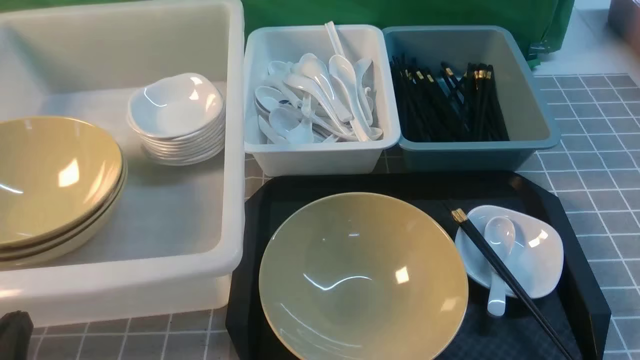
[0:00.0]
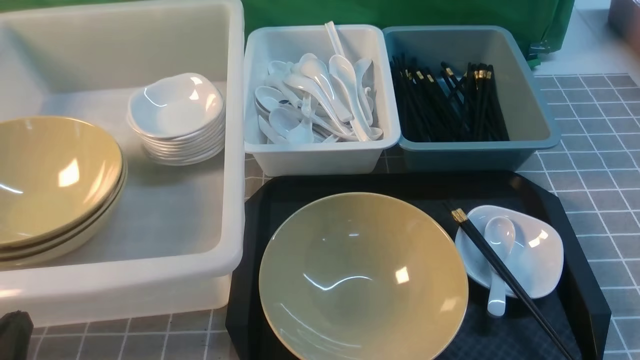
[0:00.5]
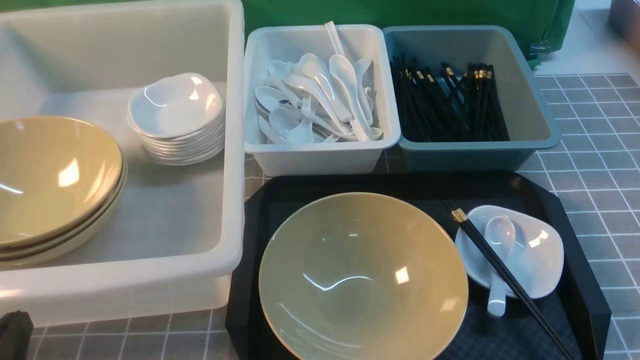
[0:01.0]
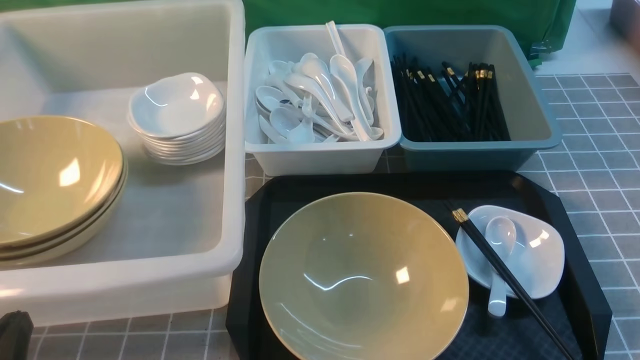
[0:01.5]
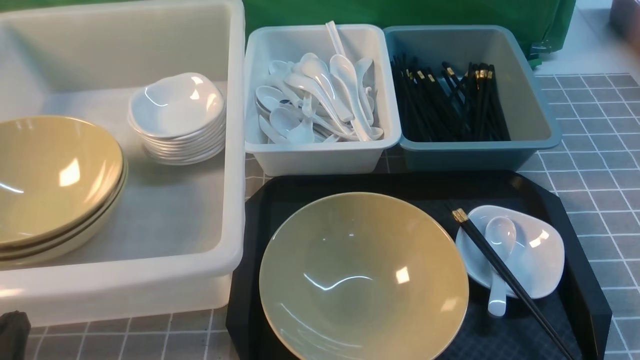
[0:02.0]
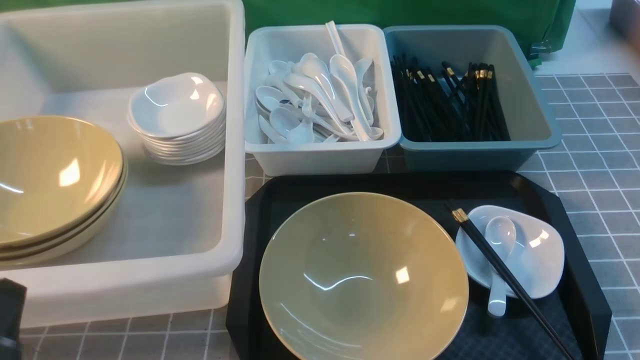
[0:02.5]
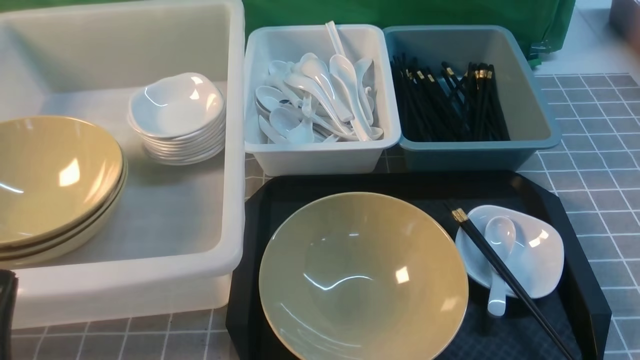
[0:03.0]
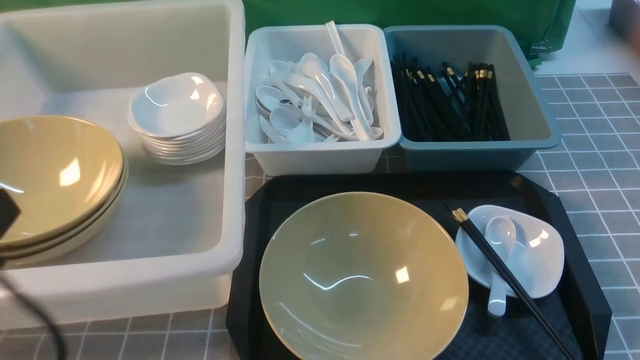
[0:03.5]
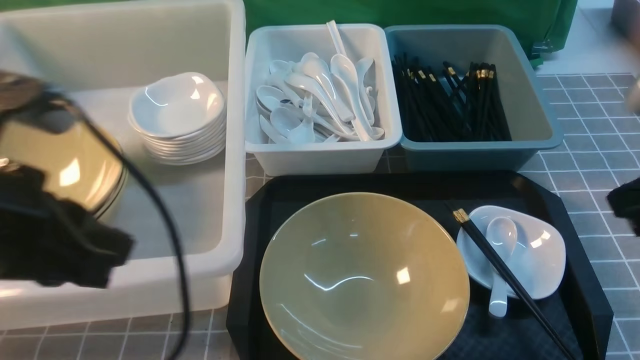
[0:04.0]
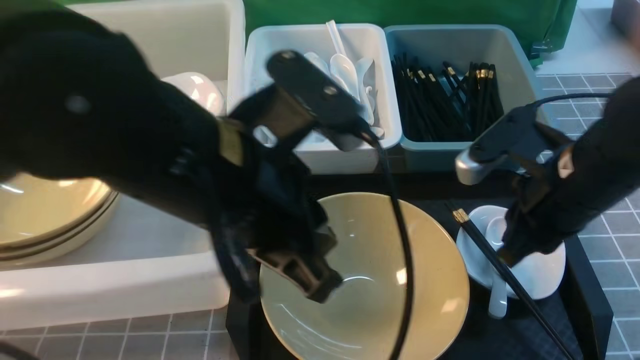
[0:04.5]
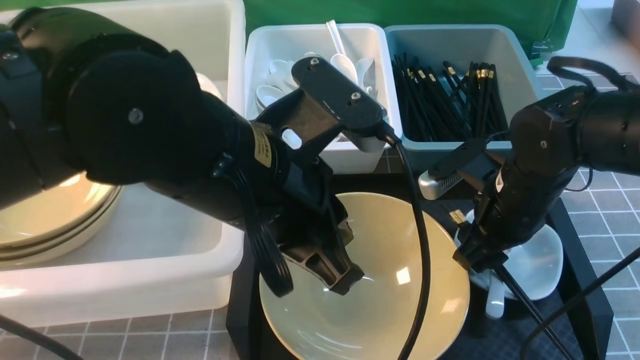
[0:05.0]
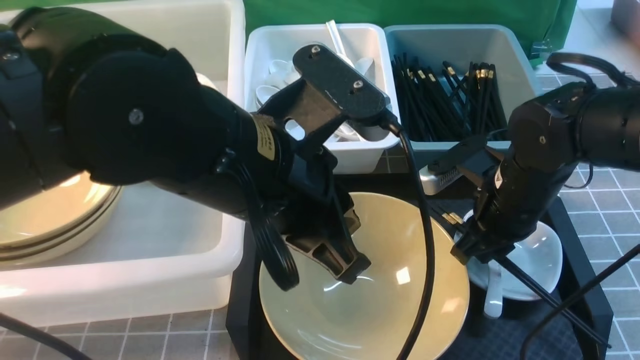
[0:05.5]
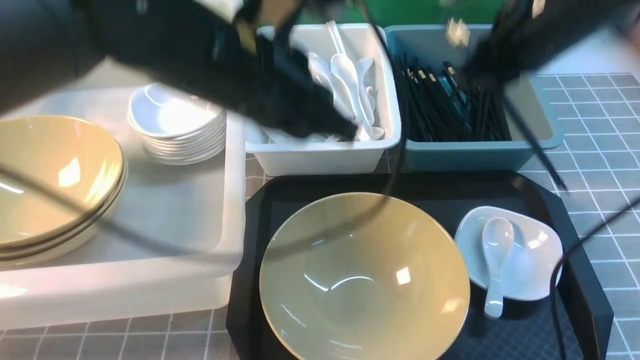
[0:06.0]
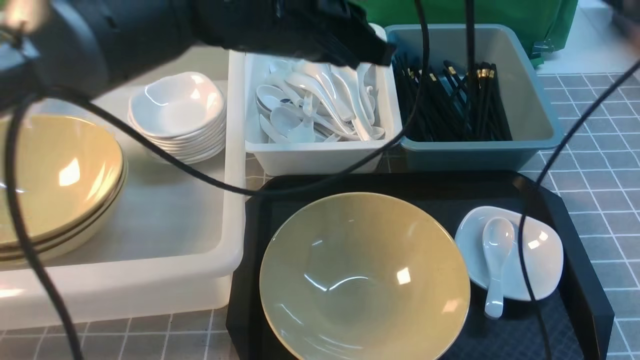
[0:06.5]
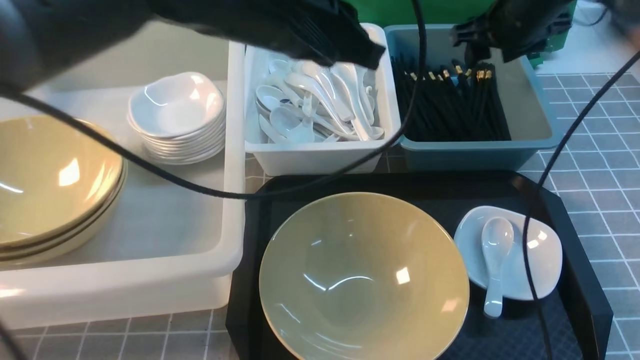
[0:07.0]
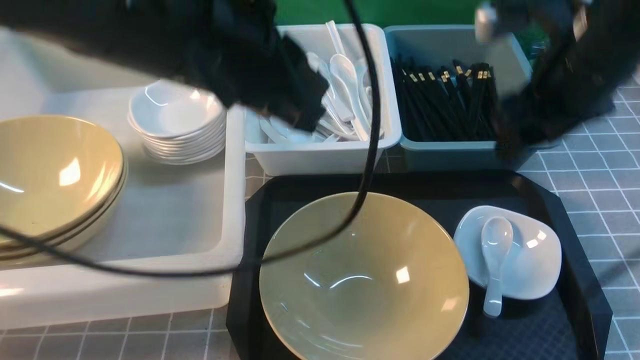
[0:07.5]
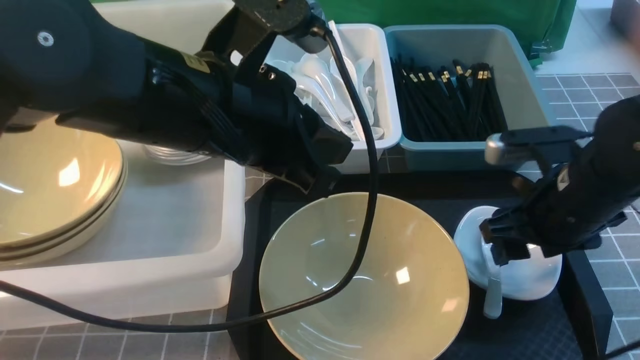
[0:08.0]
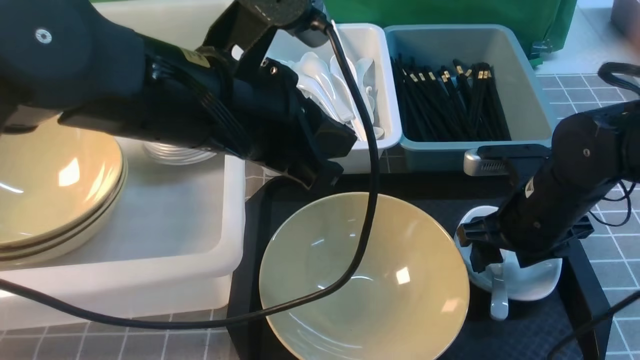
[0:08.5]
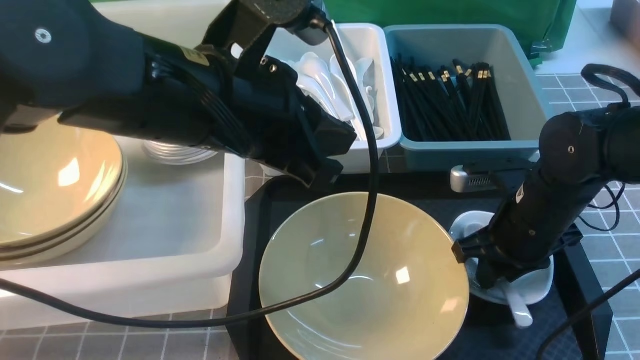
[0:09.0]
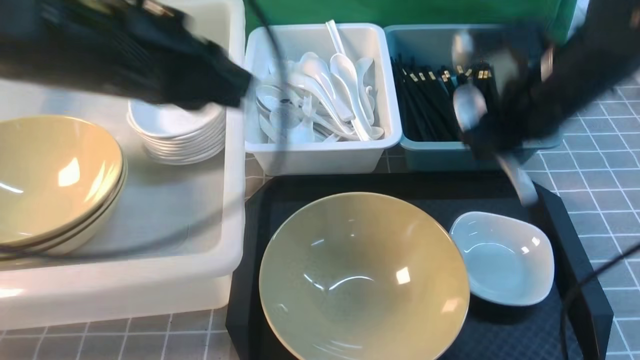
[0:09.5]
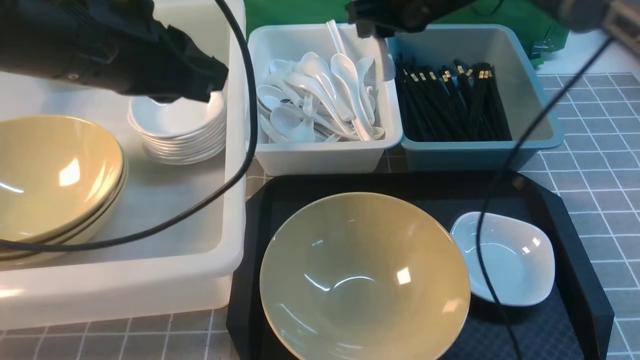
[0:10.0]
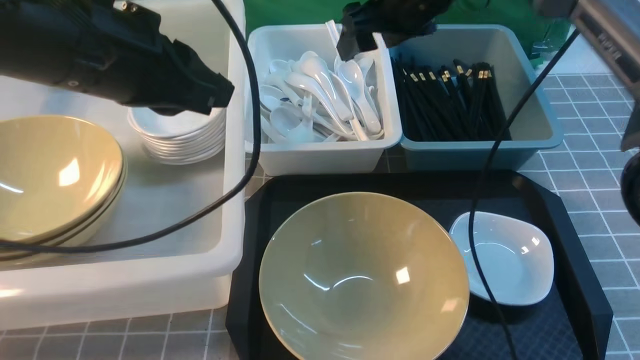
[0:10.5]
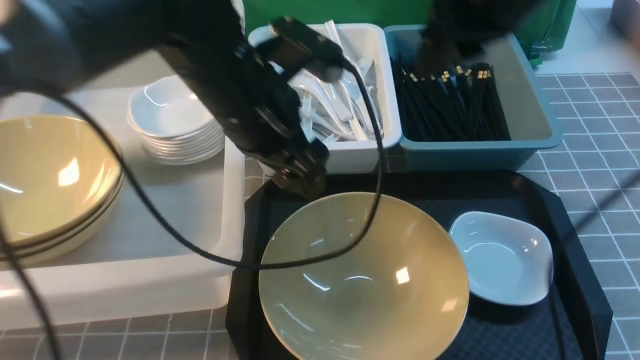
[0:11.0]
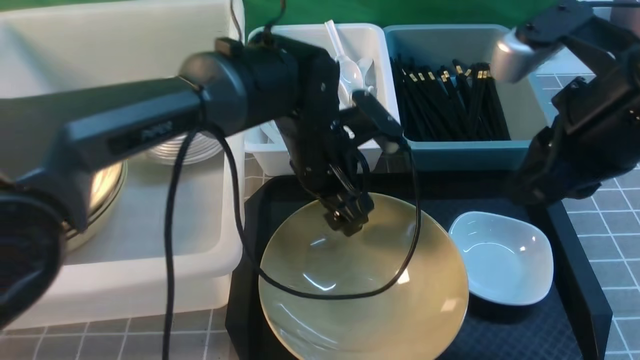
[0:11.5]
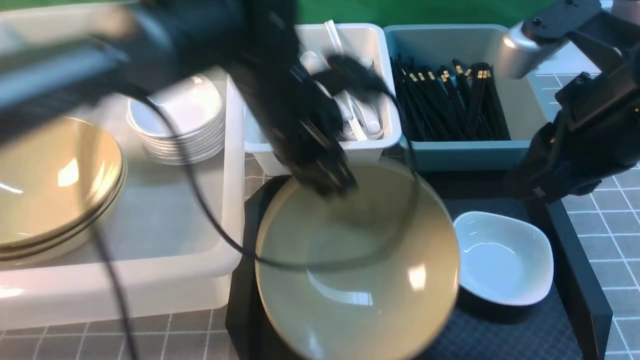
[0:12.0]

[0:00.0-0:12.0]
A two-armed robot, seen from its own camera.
Task of the whole recording: on grey table put chopsticks spoon bowls plates into blue grey white boxes.
Step, 0:00.0 to 0:05.5: use the right arm to grab the chopsticks.
Step, 0:06.0 to 0:07.0: use the right arm to put the chopsticks into the small storage box on the right.
Step, 0:07.5 to 0:09.0: use the right arm to grab the soup spoon in the middle.
Step, 0:09.5 to 0:10.0: use the right arm to put the soup spoon into the small storage box in the middle.
Step, 0:10.5 to 0:12.0: use the left arm to grab the yellow noodle bowl on the left.
0:00.0 to 0:02.0: Neither gripper changes place.
0:02.0 to 0:04.0: The grippers both shift upward and forward by roughly 20 cm. The right gripper closes its fingers.
0:04.0 to 0:06.0: The left gripper moves to the right and forward, about 20 cm, while the right gripper shifts some 20 cm forward and to the left, and opens, then closes once more.
0:06.0 to 0:08.0: The right gripper heads downward and backward, covering some 15 cm, and opens up. Meanwhile the left gripper changes place by roughly 5 cm.
0:08.0 to 0:10.0: The left gripper goes roughly 10 cm to the left. Meanwhile the right gripper goes about 25 cm forward, upward and to the left, and closes its fingers.
0:10.0 to 0:12.0: The left gripper goes some 15 cm to the right, downward and forward, and opens and closes again. The right gripper is displaced backward by approximately 25 cm, and opens and closes again.

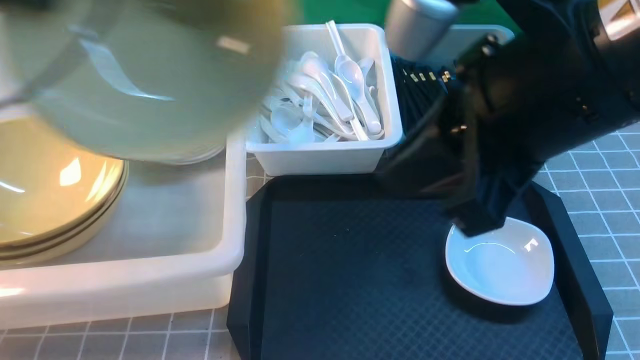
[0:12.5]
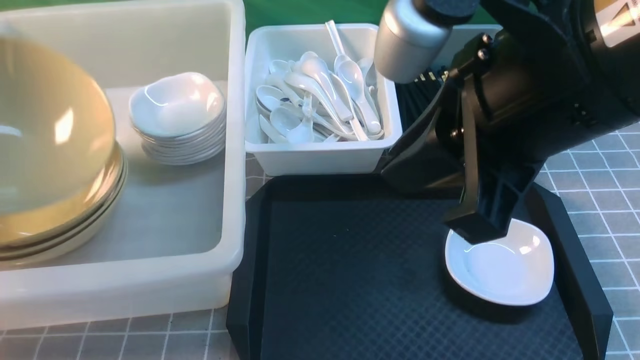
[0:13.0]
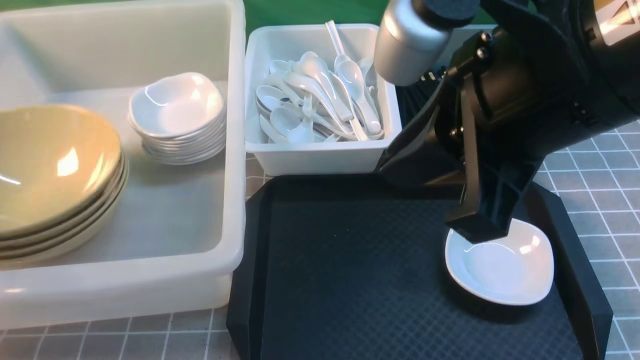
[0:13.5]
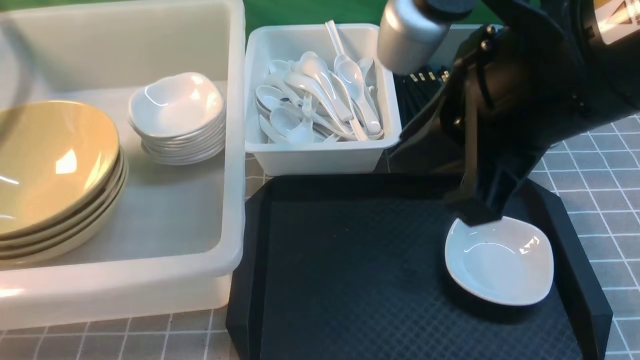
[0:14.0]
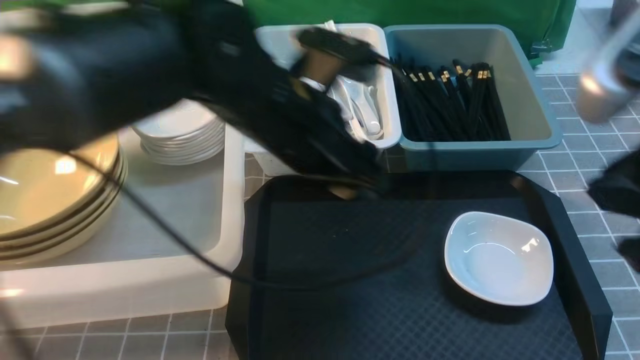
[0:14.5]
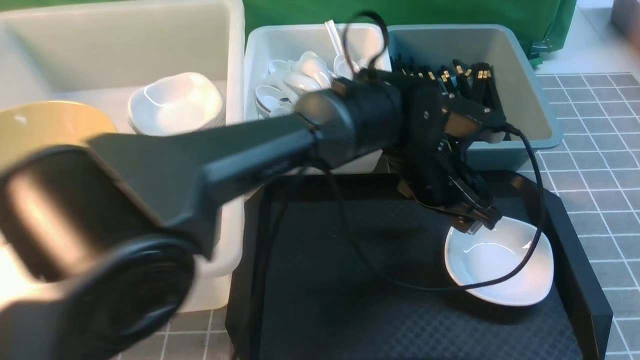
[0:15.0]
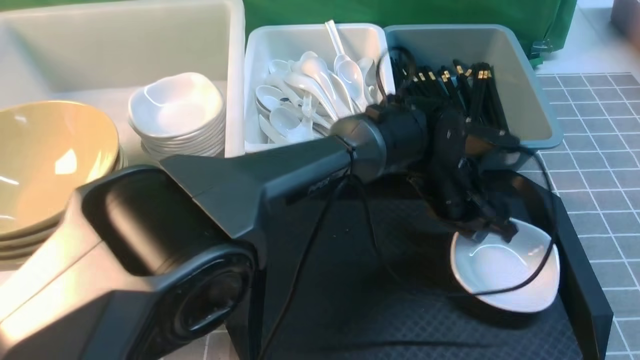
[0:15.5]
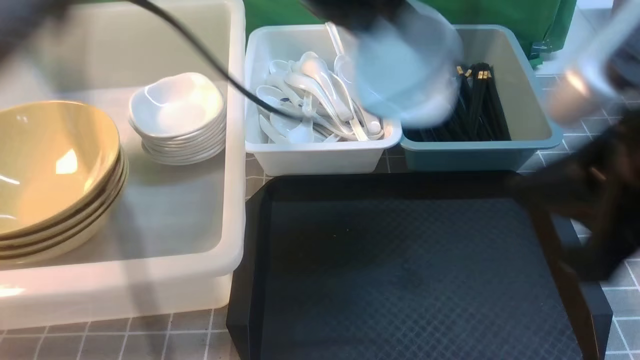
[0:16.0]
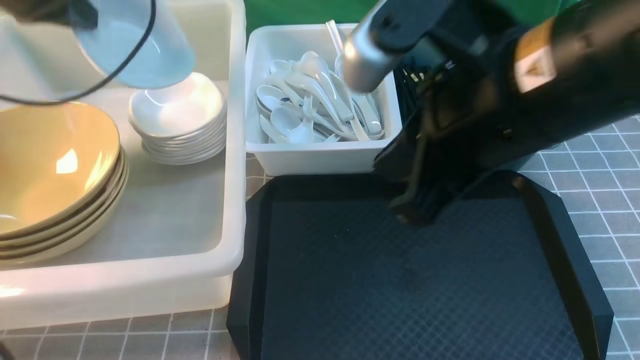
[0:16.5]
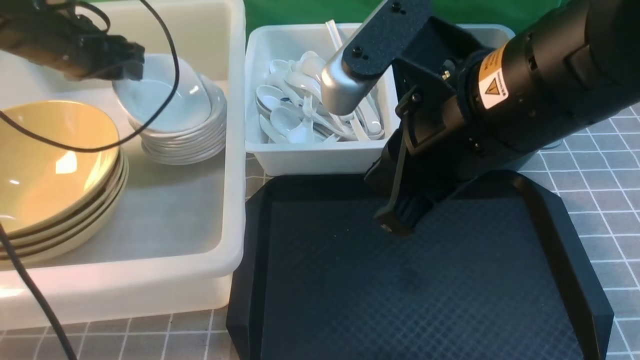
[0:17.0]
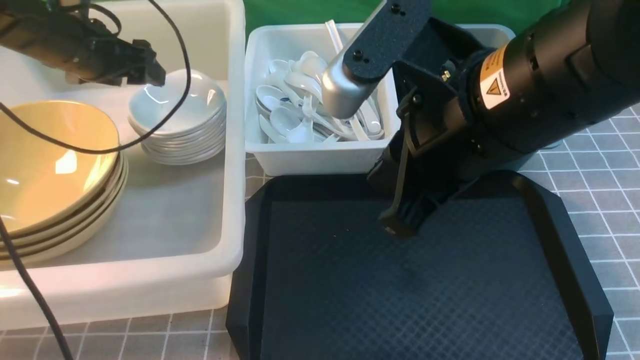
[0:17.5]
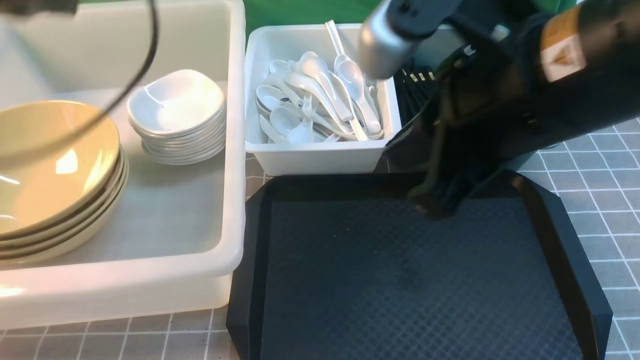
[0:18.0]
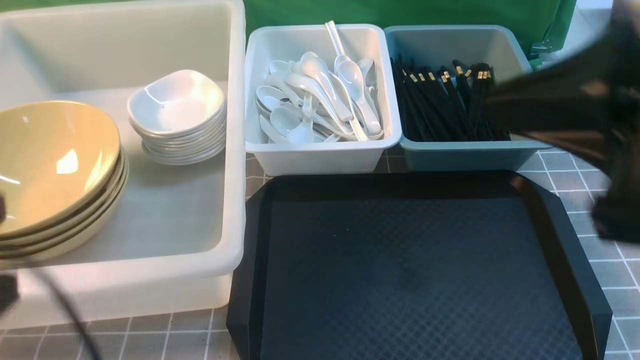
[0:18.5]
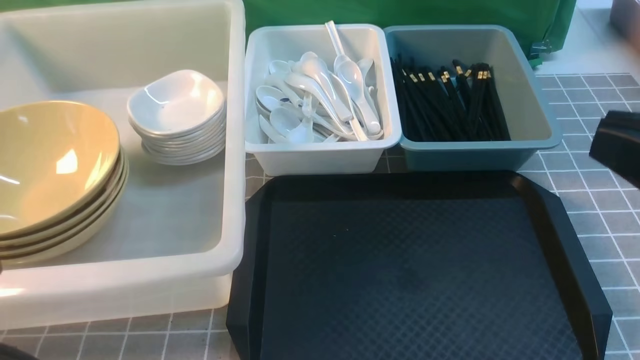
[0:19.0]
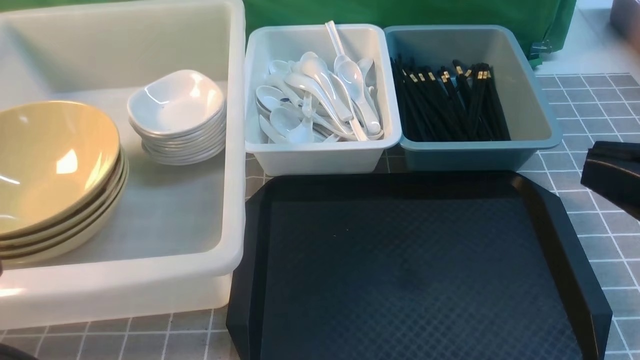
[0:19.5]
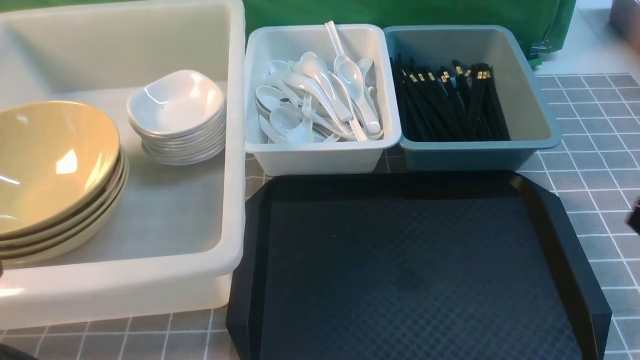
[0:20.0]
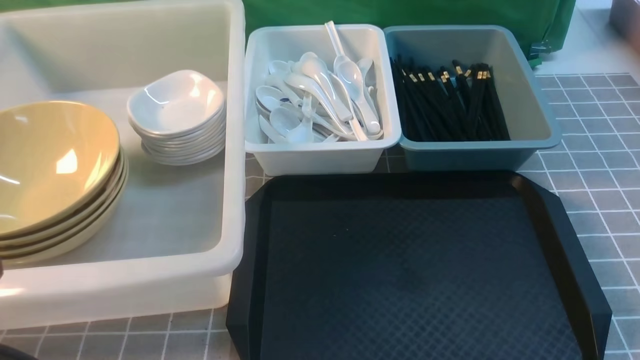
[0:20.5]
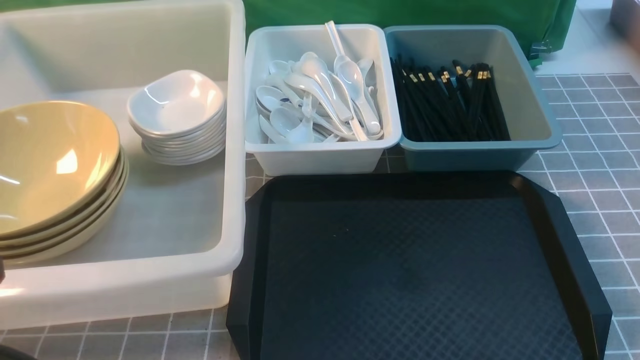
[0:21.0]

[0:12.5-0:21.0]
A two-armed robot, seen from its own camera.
Task of the whole recording: on grey table put chopsticks spoon bowls plates into blue grey white boxes.
Step, 0:12.5 to 0:13.5: use the left arm to put the noodle bowl into the large storage box on the left.
Step, 0:14.0 to 0:15.5: use the left arm to grab the plate.
Step, 0:16.5 to 0:17.0: use the left arm to put the plate into the large storage box on the left.
0:12.5 to 0:14.5: The left gripper goes some 30 cm to the right and downward, and opens up, while the right gripper is displaced to the right by some 10 cm.
0:14.5 to 0:16.5: The right gripper goes some 10 cm to the left and forward, while the left gripper shifts roughly 25 cm to the left and forward, and closes its fingers.
0:16.5 to 0:19.0: The right gripper goes approximately 15 cm to the right and backward. Meanwhile the left gripper shifts roughly 35 cm backward, and opens, then closes once more.
0:19.0 to 0:21.0: The right gripper shifts about 25 cm downward and to the right.
